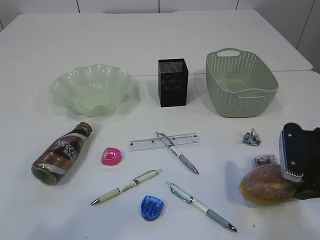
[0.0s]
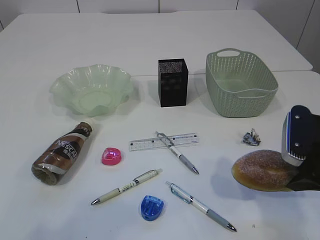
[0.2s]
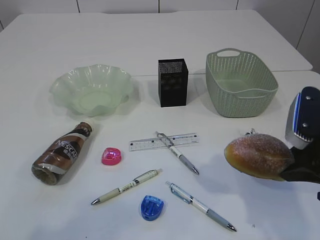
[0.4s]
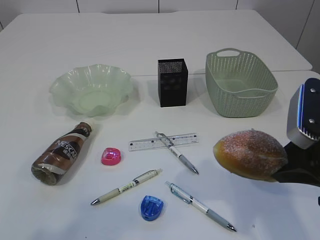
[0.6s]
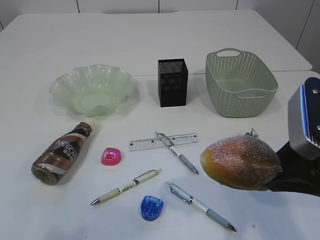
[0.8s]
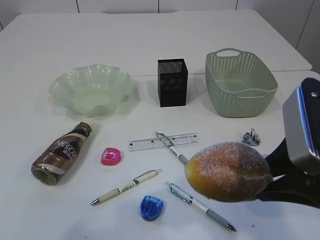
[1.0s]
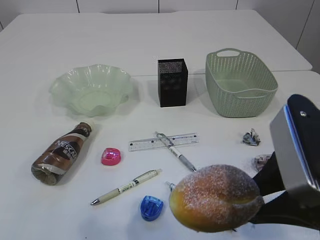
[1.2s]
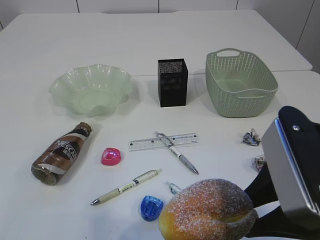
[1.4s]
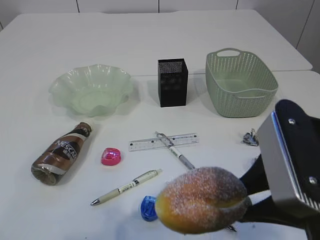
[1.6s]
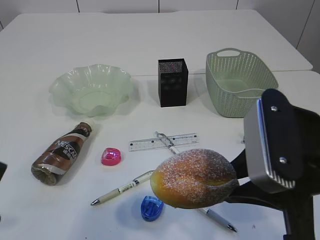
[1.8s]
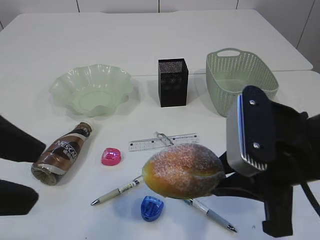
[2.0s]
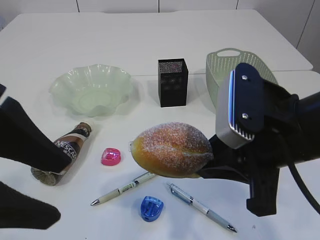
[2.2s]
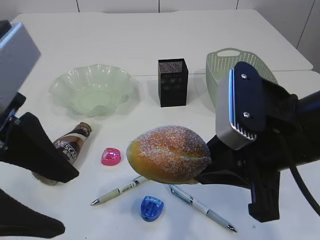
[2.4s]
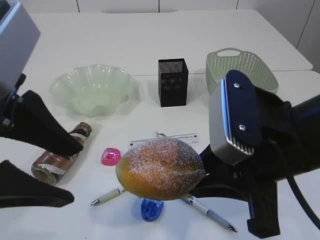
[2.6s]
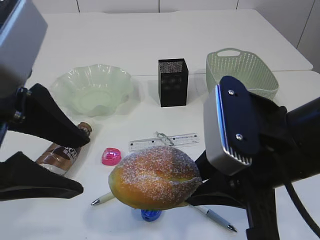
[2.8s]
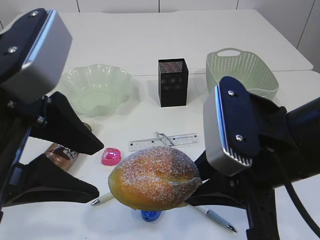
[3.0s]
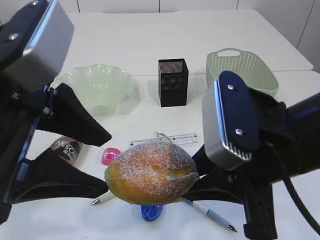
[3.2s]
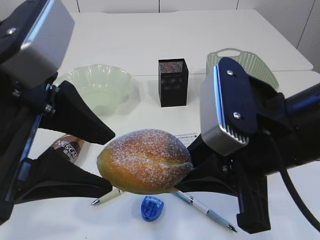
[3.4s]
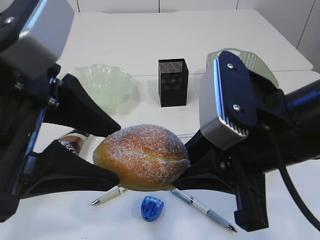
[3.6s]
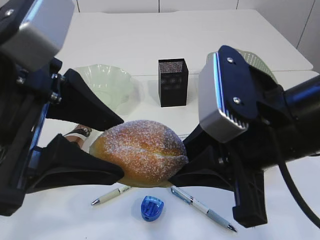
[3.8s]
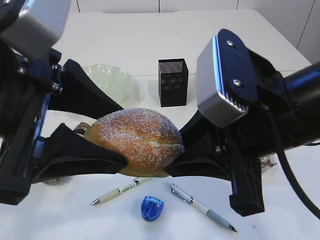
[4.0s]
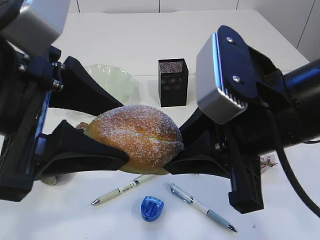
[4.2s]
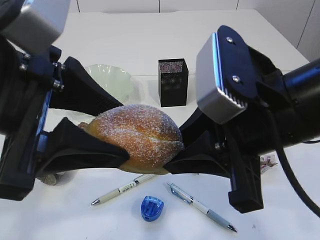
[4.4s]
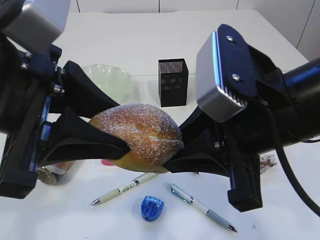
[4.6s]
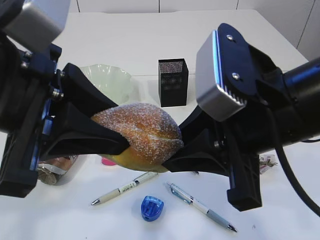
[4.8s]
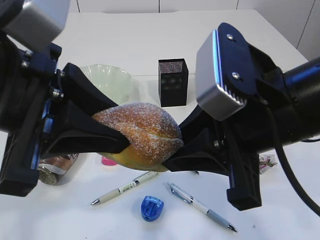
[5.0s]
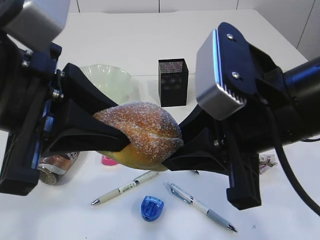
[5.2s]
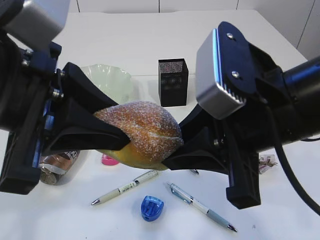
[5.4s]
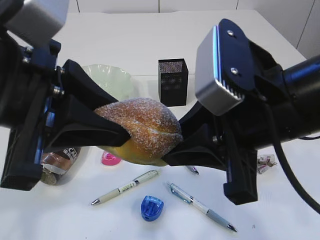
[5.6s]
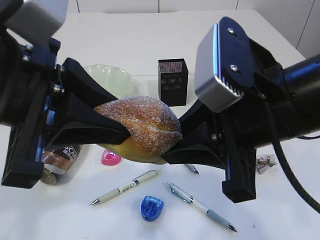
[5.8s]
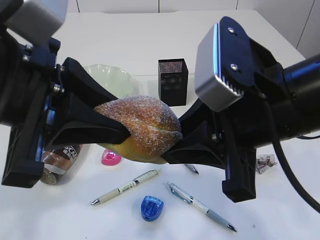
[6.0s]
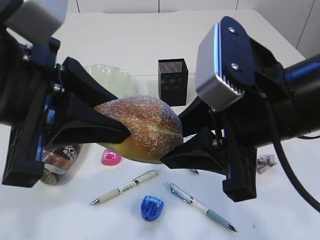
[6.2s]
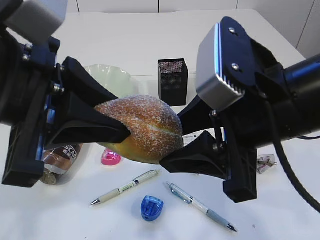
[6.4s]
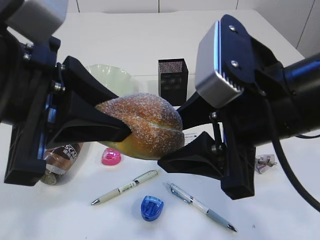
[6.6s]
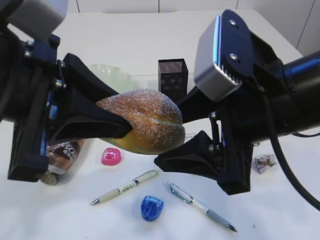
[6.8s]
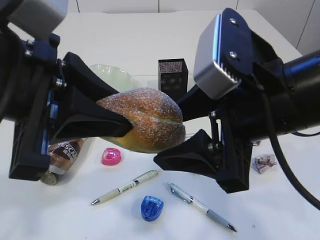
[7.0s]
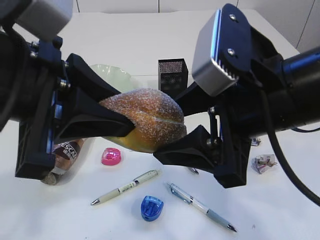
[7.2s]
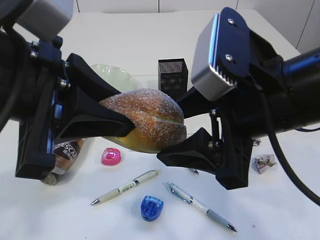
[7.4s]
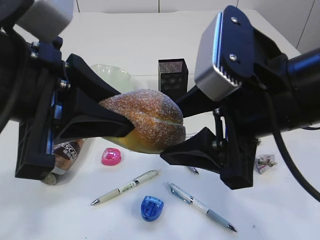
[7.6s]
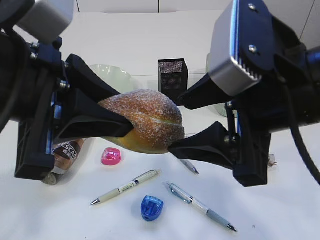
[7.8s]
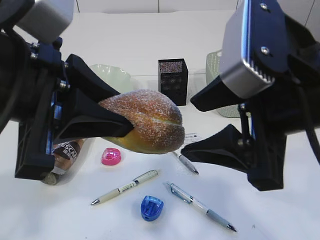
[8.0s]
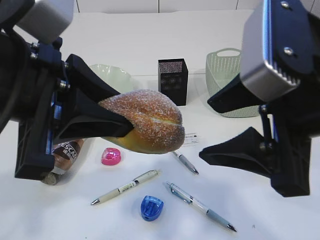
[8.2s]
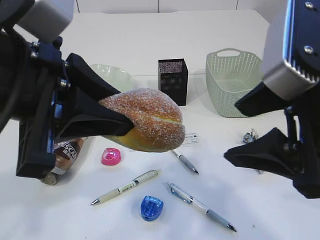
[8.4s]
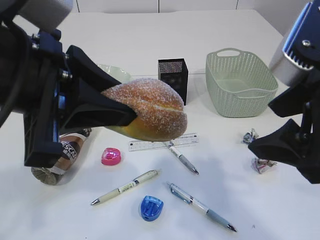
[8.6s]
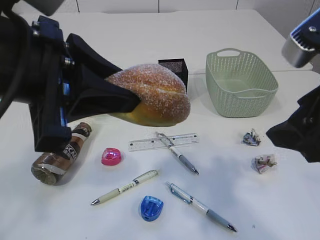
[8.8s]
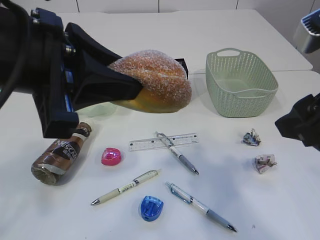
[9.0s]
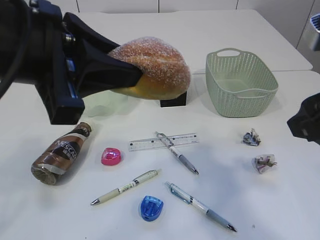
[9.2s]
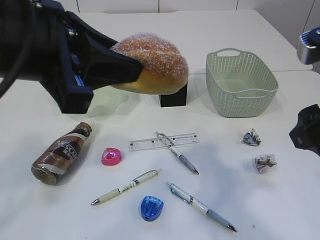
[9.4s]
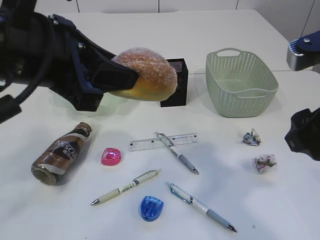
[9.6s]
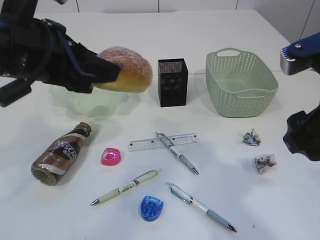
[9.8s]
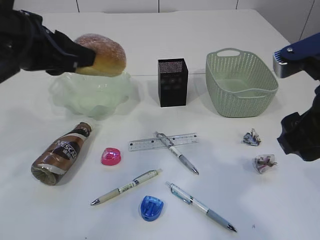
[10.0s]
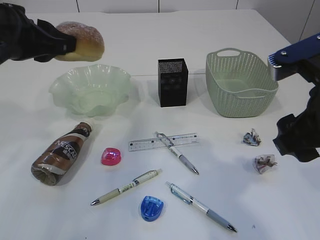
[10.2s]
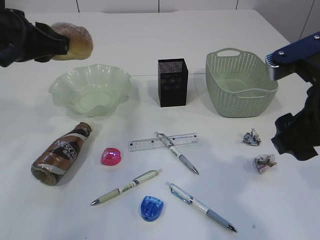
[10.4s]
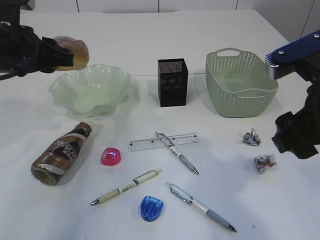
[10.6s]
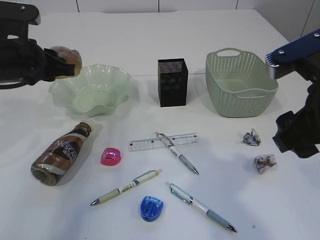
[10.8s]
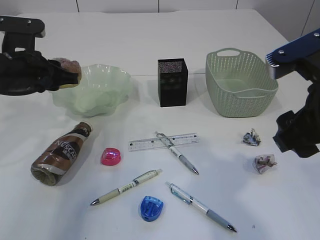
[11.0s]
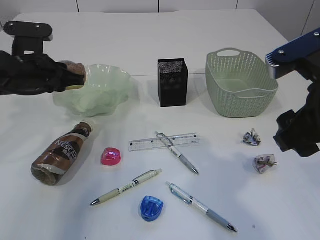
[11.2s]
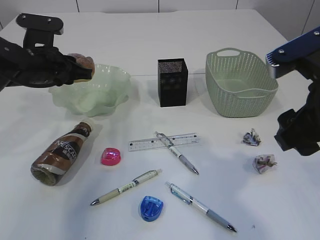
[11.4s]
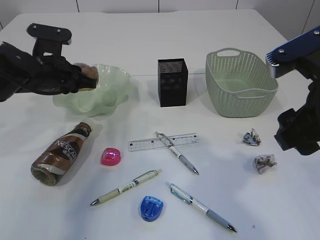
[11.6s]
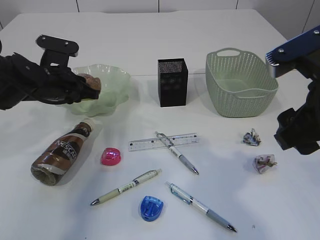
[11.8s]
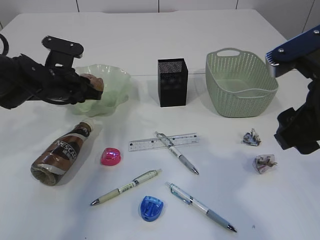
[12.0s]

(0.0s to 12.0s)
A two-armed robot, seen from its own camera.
Step, 1.8s - 8.8s: Hand over the bread.
0.0s - 1.6s: The left gripper shifts by some 5 cm. Meanwhile the right gripper goes about 15 cm to the left, upward and backward.
1.6s - 3.0s: The left gripper heads to the right and forward, covering some 15 cm.
4.4s - 6.0s: The left gripper closes up.
6.0s - 7.6s: The right gripper opens its fingers.
7.6s - 9.0s: The right gripper goes some 10 cm to the right.
9.0s - 10.4s: The left gripper travels forward and to the left by about 15 cm.
10.4s - 12.0s: The left gripper heads downward and forward, covering approximately 15 cm.

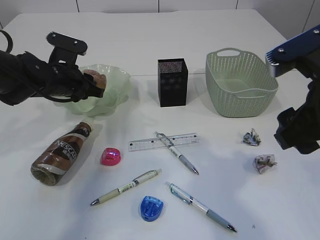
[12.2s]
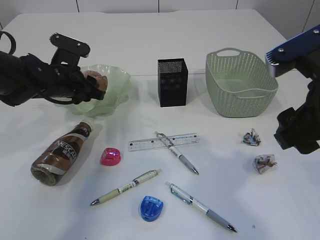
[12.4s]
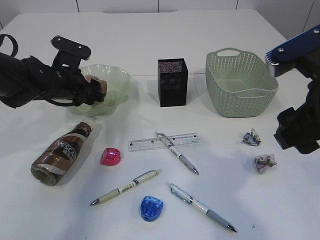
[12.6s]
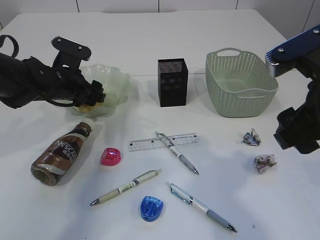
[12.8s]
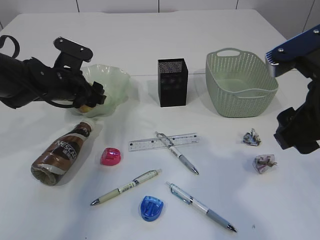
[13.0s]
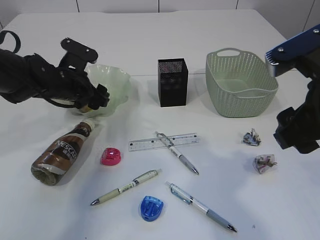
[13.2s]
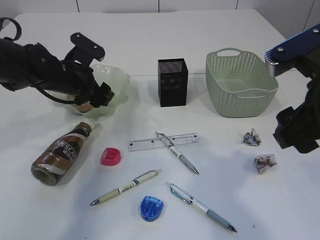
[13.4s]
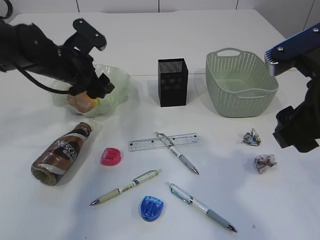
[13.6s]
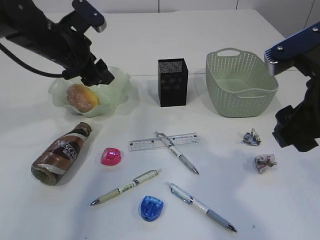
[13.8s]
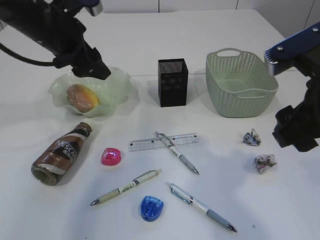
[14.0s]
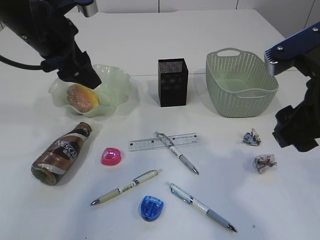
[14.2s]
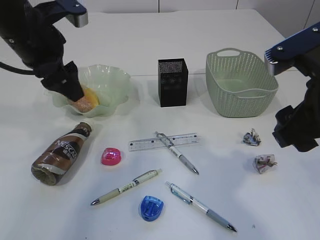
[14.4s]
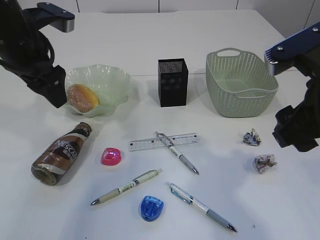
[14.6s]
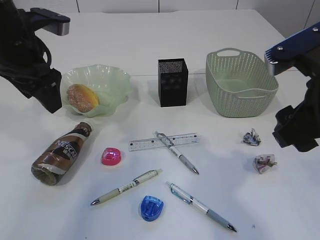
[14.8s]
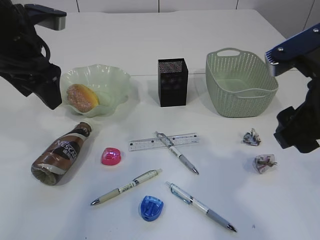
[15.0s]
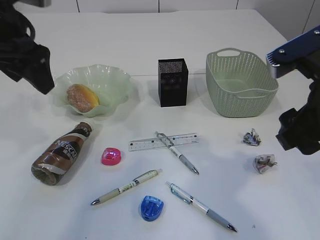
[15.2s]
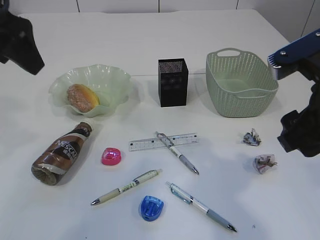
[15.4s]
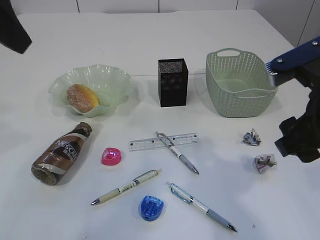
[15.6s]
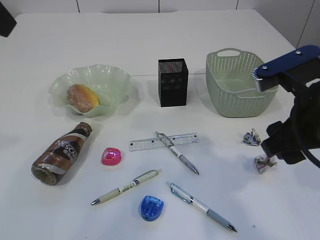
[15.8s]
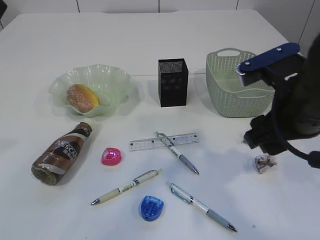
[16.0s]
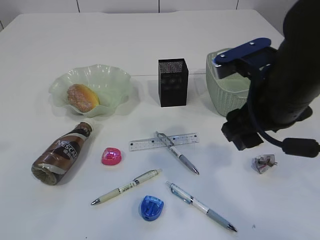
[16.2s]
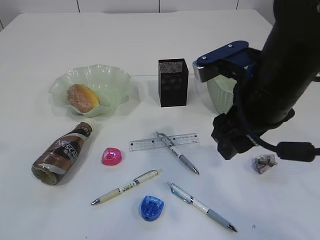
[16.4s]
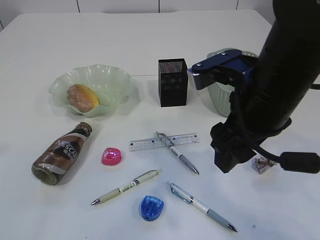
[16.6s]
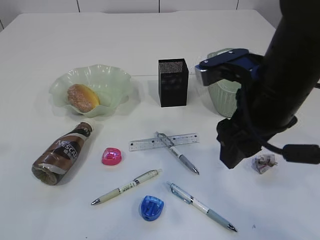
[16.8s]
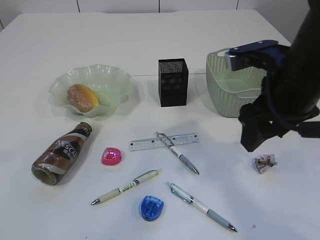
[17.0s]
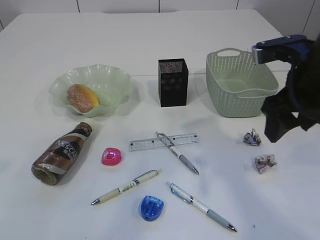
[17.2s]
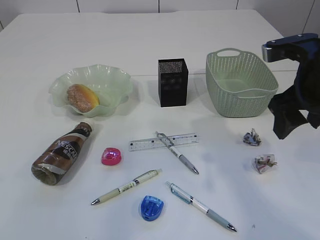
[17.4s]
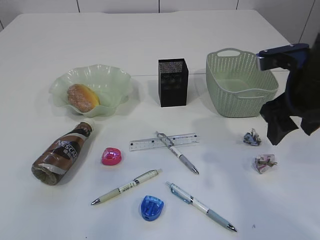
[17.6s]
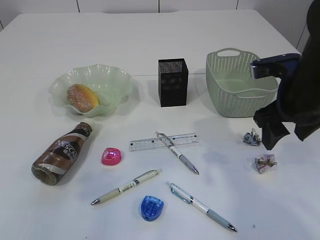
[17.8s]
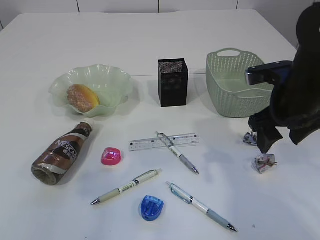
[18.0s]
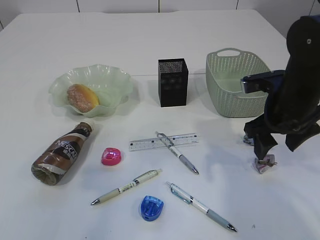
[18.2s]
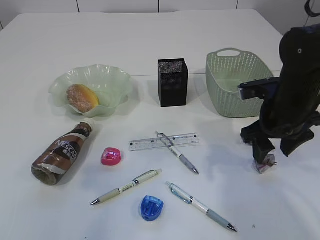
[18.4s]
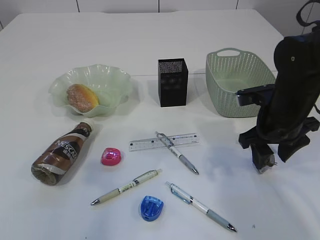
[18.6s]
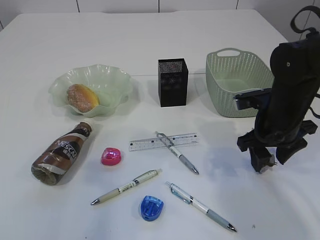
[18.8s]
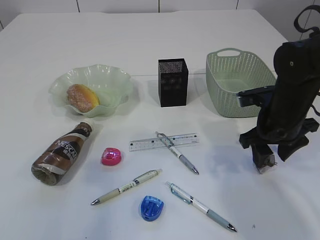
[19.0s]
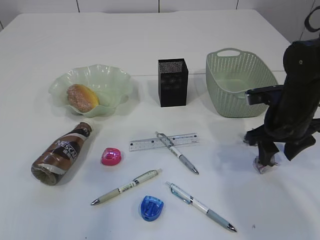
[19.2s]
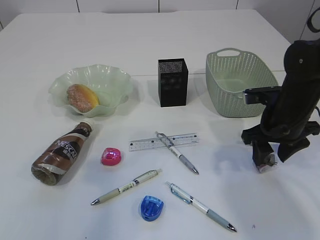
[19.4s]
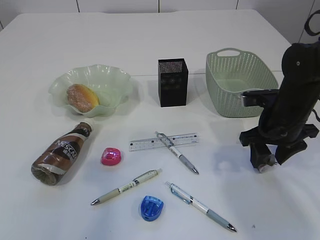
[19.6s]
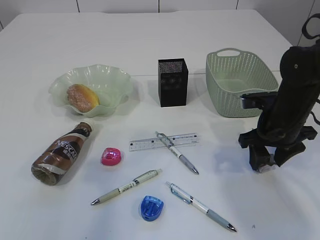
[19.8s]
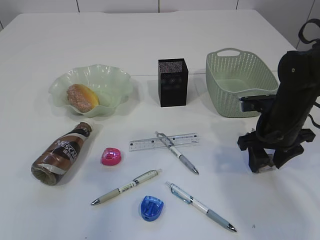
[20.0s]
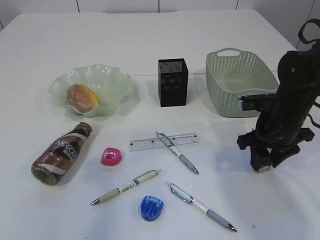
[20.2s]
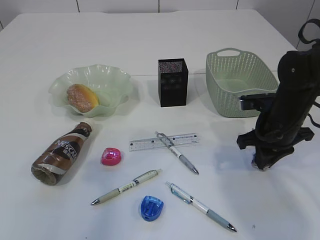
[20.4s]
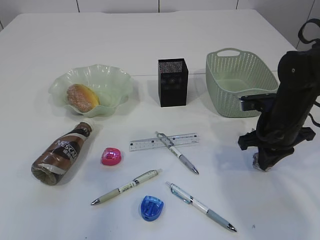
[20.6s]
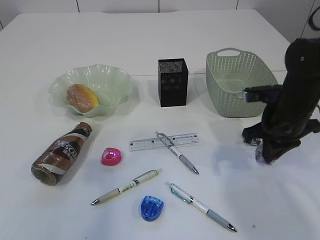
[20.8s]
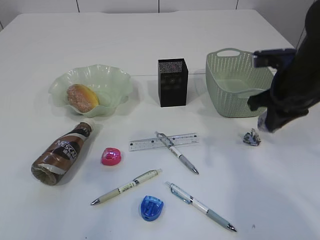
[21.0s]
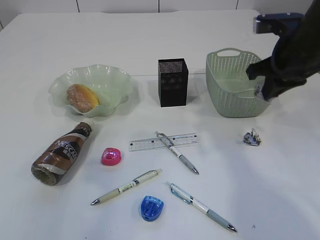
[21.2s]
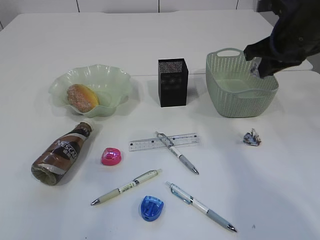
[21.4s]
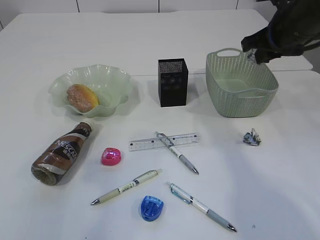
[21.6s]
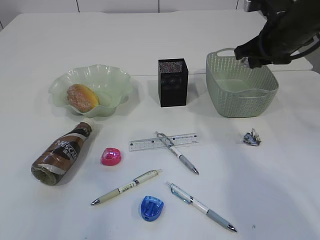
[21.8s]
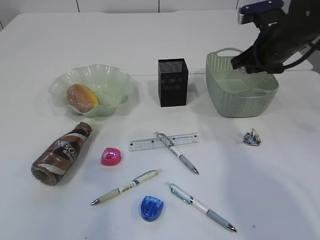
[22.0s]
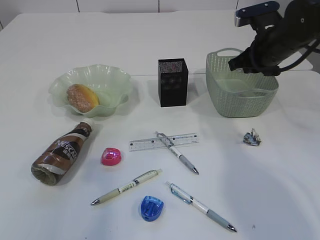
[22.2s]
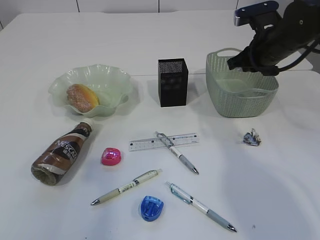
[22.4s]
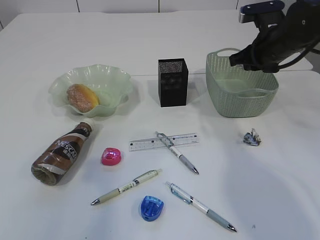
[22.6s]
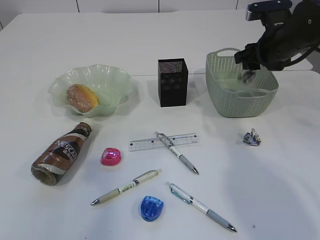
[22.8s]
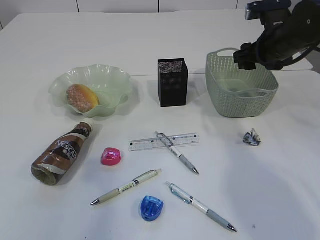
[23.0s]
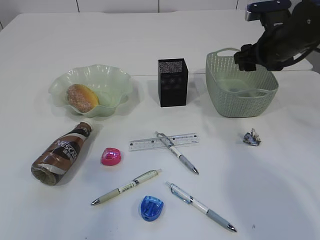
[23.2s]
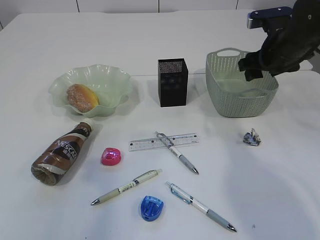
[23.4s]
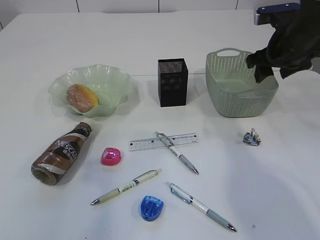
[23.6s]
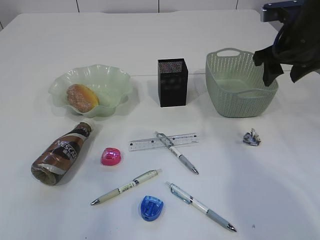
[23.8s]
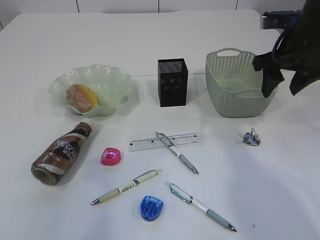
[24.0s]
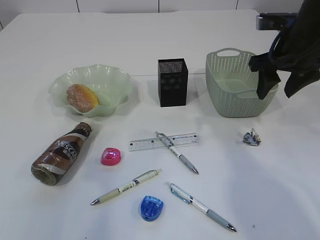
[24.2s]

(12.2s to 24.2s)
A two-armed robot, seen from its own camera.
Step, 12.2s - 14.6s: place the bread in the plate.
Step, 14.8s - 20.8s: Pick up the waste paper.
Step, 21.0s - 23.4s: Place the waste paper in the basket.
12.2s - 13.8s: The left gripper goes some 10 cm upward, and opens up.
13.8s - 15.2s: The left gripper is displaced upward and backward by approximately 15 cm.
15.2s - 16.6s: The left gripper shifts approximately 20 cm backward and upward. Meanwhile the right gripper heads to the left, covering approximately 5 cm.
16.6s - 18.2s: The left gripper heads downward, covering roughly 10 cm. The right gripper moves to the right, forward and downward, roughly 15 cm.
18.2s - 19.8s: The right gripper moves downward, roughly 5 cm.
19.8s - 21.2s: The right gripper is displaced upward by approximately 15 cm, and closes up.
21.2s - 22.6s: The right gripper heads forward, covering approximately 5 cm.
22.6s - 24.2s: The right gripper heads backward, covering approximately 5 cm, and opens its fingers.
